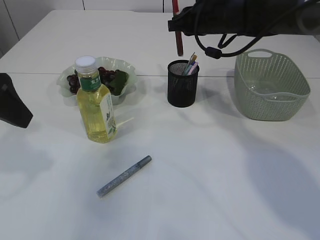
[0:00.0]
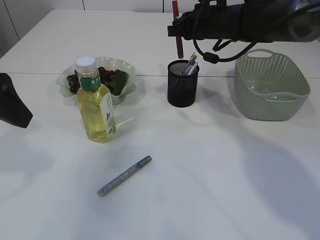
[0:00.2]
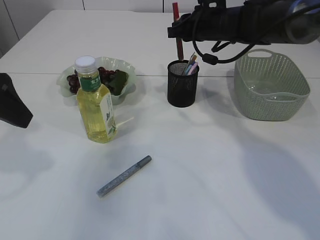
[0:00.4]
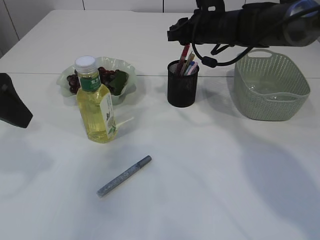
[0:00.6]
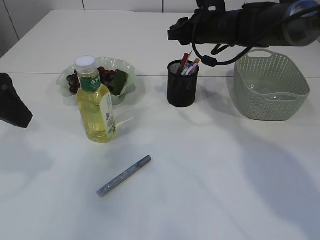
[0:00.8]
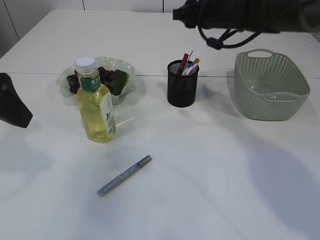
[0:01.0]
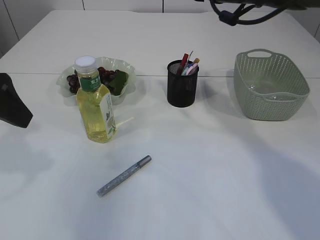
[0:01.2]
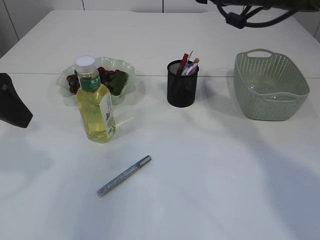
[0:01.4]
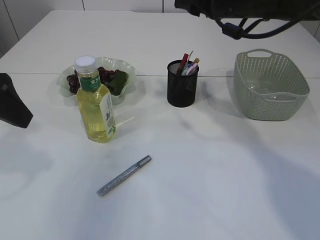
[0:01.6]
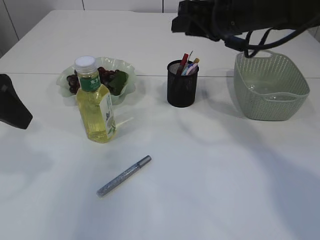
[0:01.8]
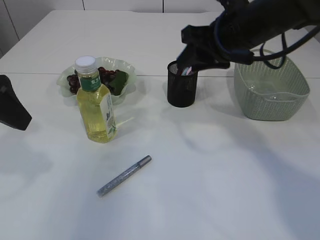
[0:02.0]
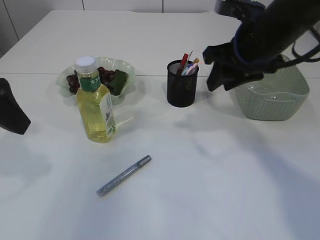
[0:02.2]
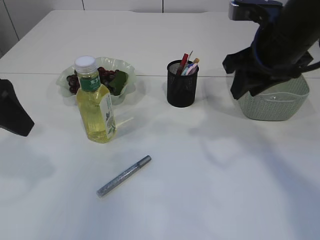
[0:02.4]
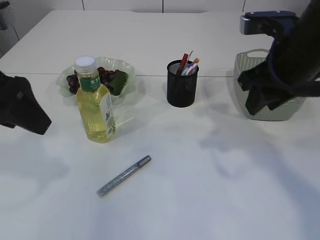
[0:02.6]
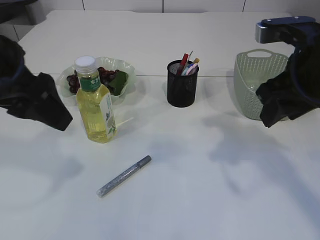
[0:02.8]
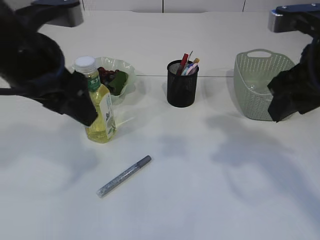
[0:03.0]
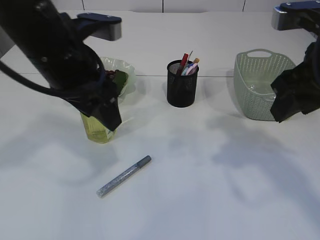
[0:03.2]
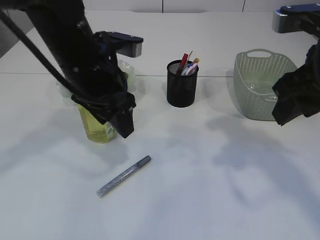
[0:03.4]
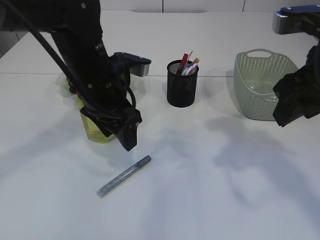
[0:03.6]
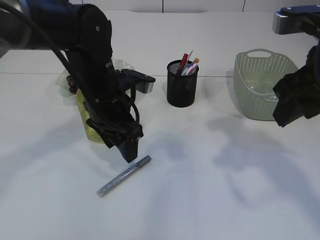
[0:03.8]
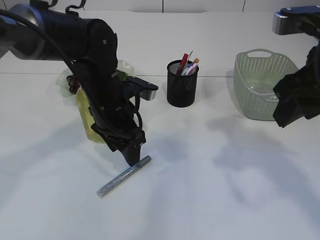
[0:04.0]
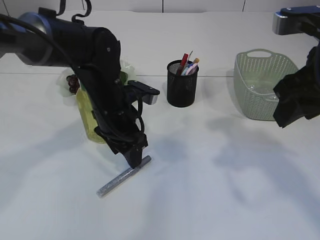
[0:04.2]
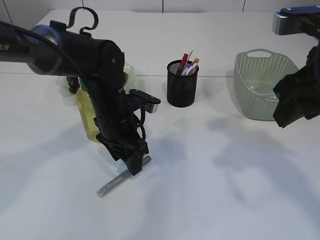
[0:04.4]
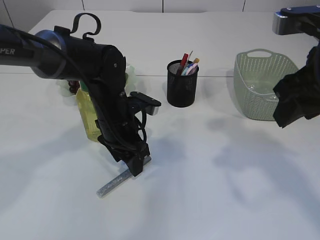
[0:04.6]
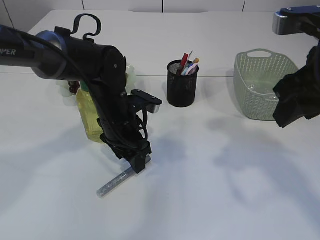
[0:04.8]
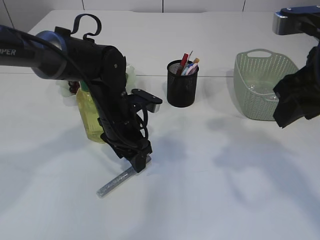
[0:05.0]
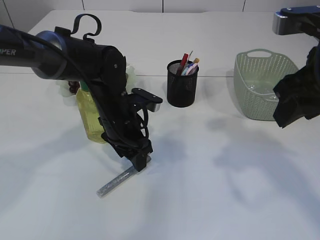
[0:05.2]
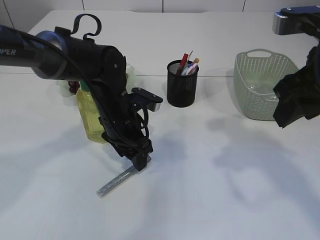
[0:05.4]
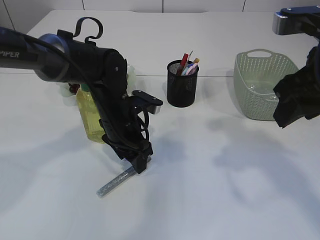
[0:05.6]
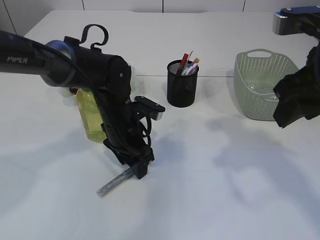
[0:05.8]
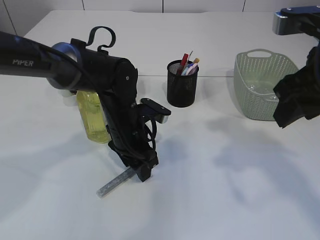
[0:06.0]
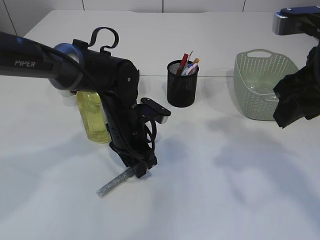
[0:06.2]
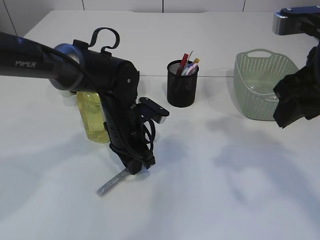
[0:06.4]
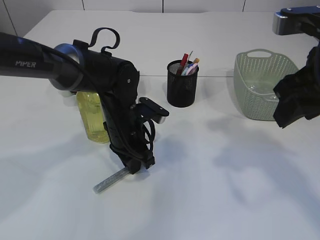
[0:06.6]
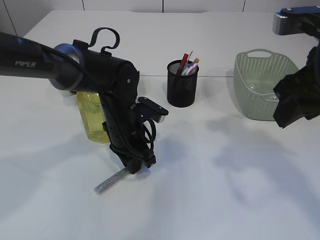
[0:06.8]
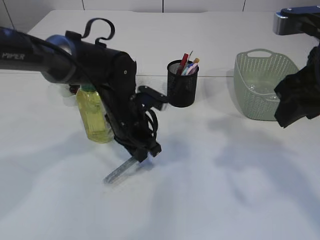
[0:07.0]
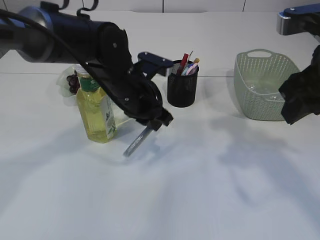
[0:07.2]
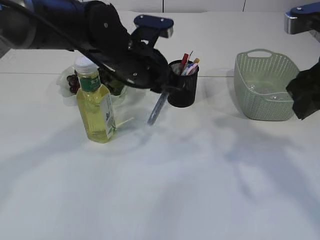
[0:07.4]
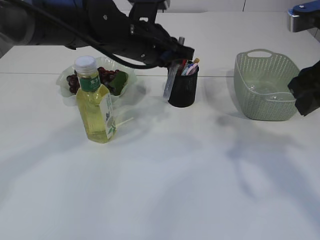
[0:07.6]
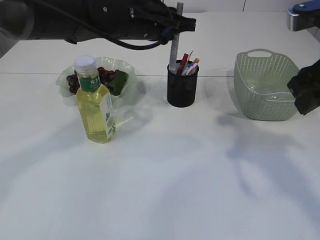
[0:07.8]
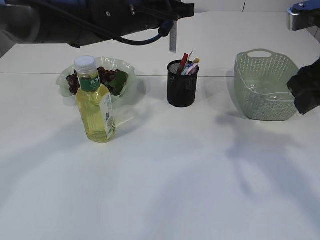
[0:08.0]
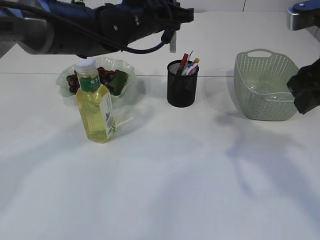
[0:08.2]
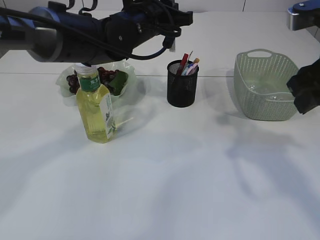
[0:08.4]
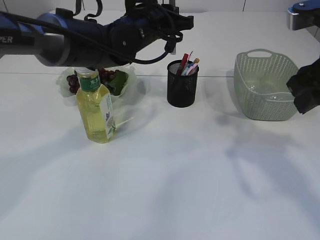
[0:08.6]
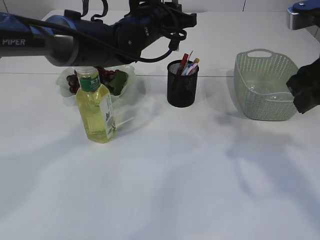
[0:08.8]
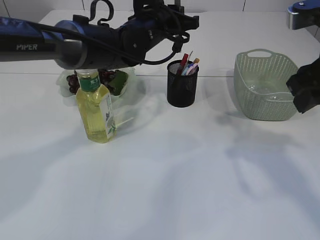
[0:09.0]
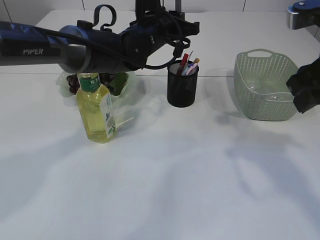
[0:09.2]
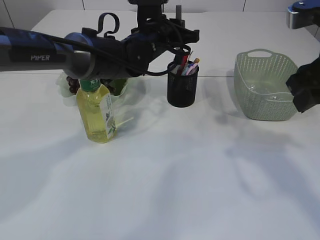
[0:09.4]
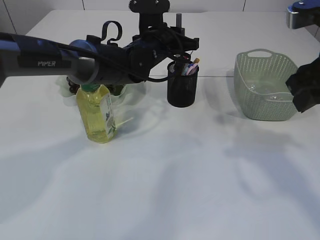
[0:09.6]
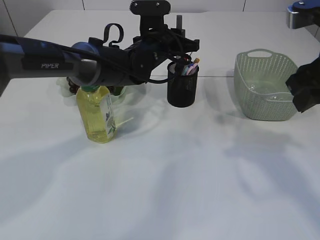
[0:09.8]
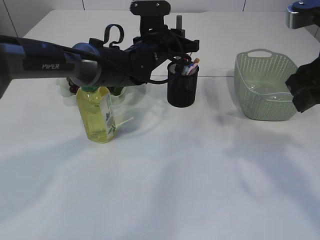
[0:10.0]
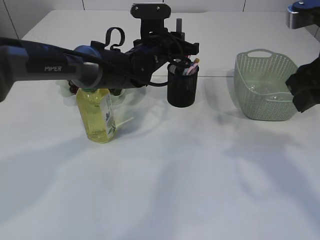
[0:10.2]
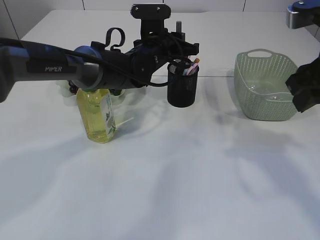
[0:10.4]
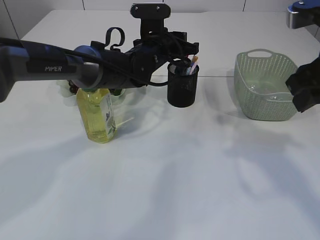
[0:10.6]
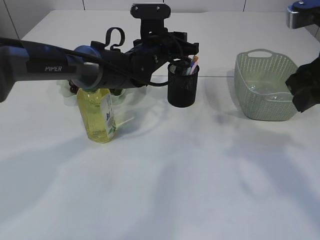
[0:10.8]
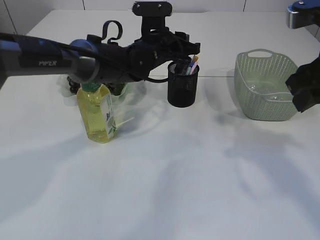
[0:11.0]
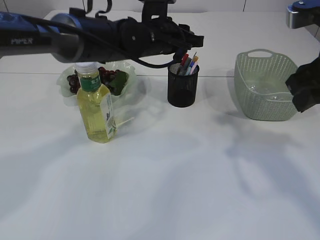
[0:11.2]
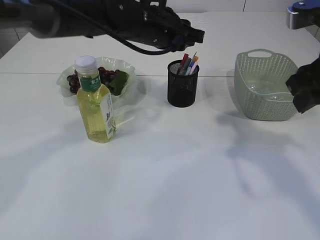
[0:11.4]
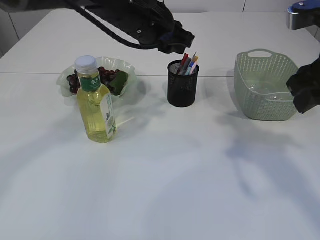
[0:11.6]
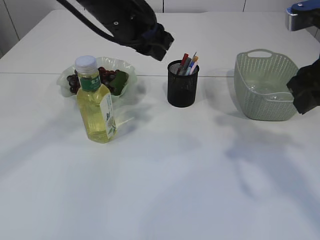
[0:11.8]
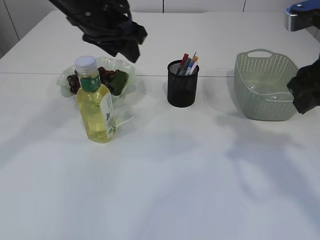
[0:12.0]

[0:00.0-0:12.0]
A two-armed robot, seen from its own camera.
Step, 0:01.0 to 0:07.2: pick up the silver glue.
Step, 0:07.4 to 0:11.6: place the silver glue into the pen holder.
0:00.0 to 0:01.6: The right gripper heads backward, covering roughly 5 cm, and opens its fingers.
0:01.6 to 0:03.0: The left gripper goes approximately 10 cm to the right, while the right gripper travels backward and to the right by about 15 cm.
0:03.0 to 0:04.4: The left gripper is displaced downward, forward and to the right by about 20 cm.
0:04.4 to 0:06.0: There are only small adjustments of the grippers.
0:06.0 to 0:07.6: The left gripper heads upward, covering about 15 cm, and closes its fingers.
0:07.6 to 0:09.0: The left gripper goes approximately 5 cm forward.
0:09.0 to 0:10.4: The left gripper is displaced downward by roughly 5 cm.
0:10.4 to 0:12.0: The left gripper is displaced upward, to the left and backward by roughly 15 cm, and opens up.

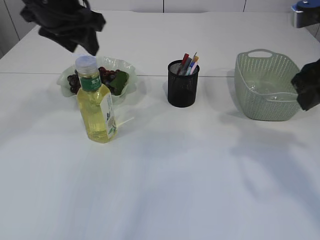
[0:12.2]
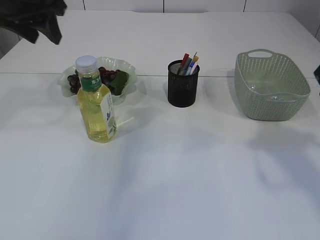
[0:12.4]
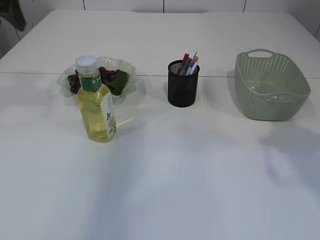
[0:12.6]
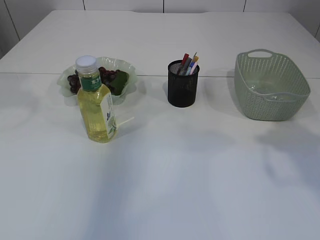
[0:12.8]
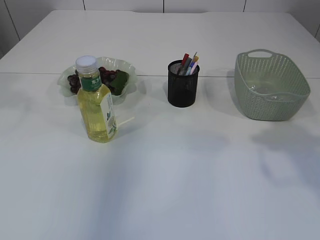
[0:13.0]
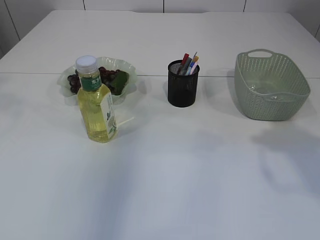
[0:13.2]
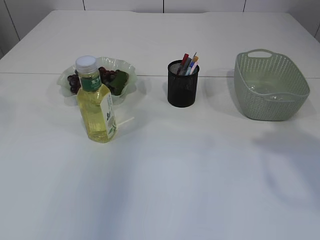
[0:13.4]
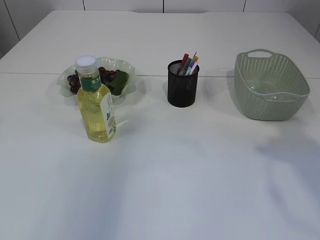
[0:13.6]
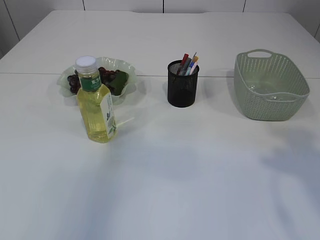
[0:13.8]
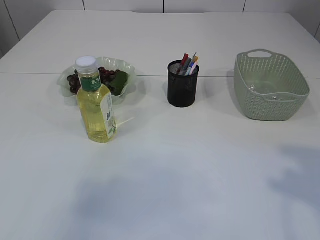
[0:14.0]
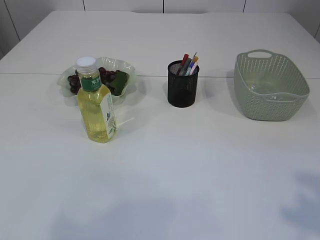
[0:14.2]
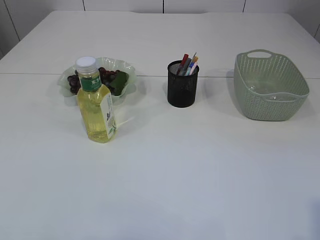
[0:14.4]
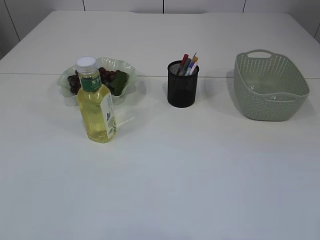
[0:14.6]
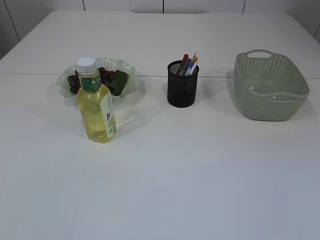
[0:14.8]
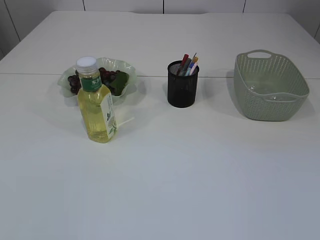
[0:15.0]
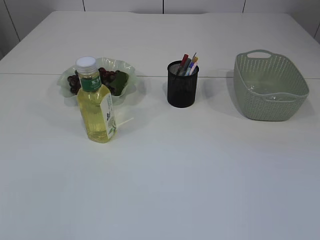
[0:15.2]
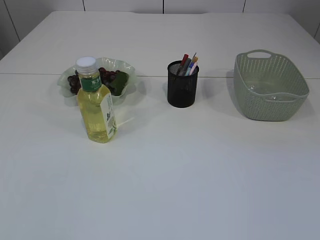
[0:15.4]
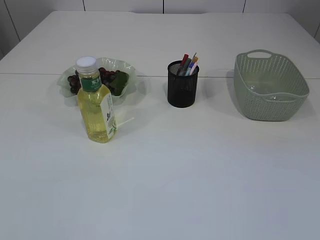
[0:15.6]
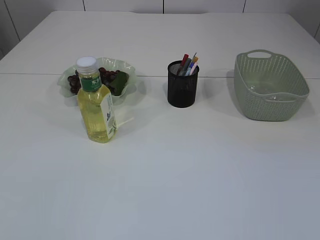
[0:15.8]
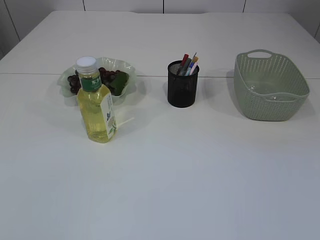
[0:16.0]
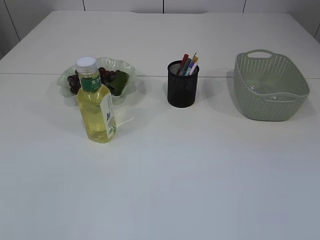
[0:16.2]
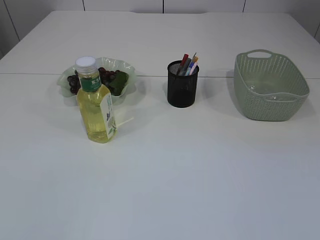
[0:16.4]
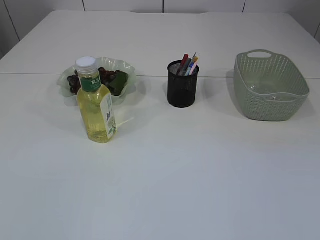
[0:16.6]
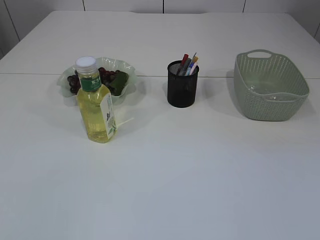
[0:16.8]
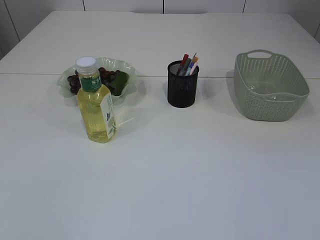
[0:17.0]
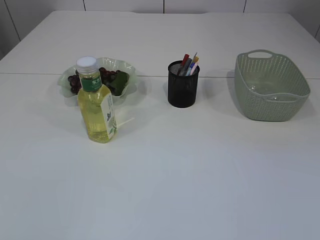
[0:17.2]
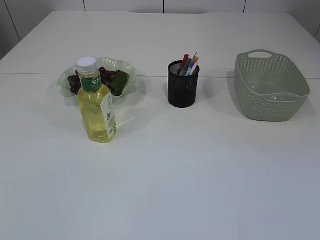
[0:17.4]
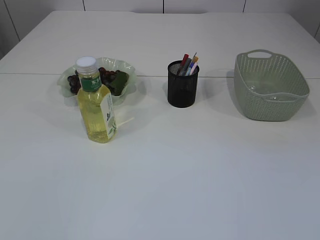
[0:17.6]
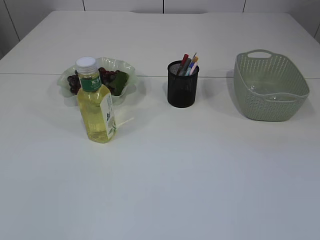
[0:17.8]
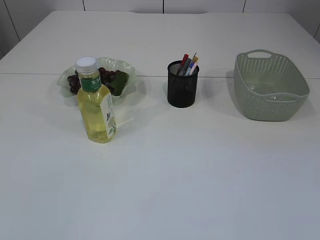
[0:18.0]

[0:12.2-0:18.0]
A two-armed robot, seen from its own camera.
0:12.2 to 0:13.6: The left gripper goes roughly 25 cm to the left, backward and upward; the right gripper moves upward, backward and to the right, approximately 10 cm.
0:13.6 to 0:15.0: The left gripper moves backward and downward, roughly 30 cm.
0:16.6 to 0:18.0: Both grippers stay about where they are.
